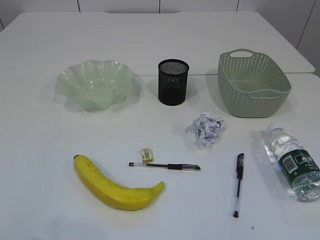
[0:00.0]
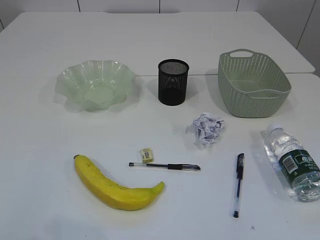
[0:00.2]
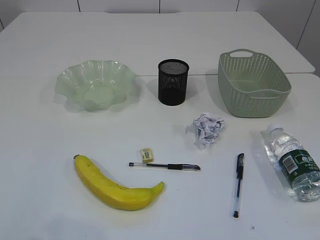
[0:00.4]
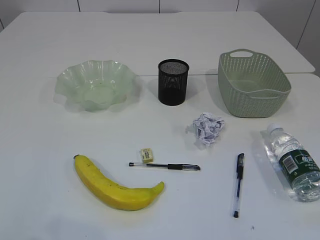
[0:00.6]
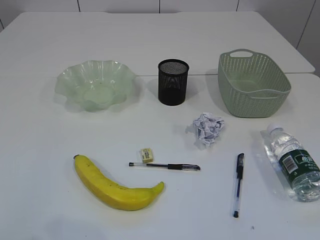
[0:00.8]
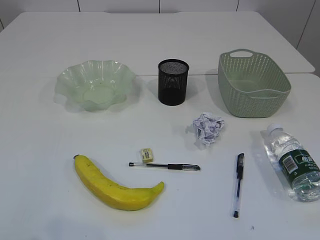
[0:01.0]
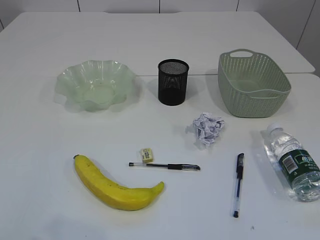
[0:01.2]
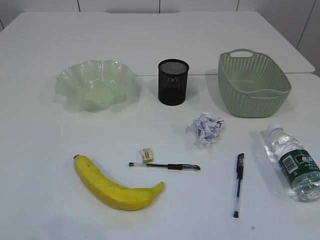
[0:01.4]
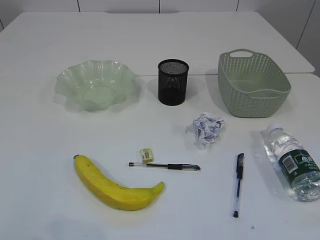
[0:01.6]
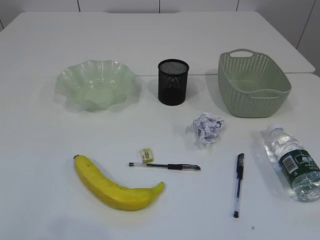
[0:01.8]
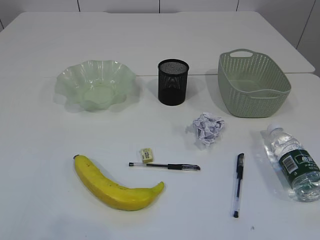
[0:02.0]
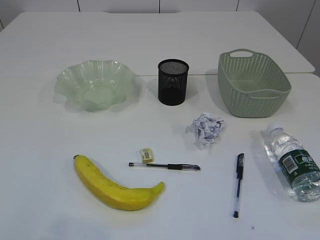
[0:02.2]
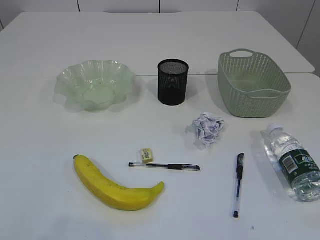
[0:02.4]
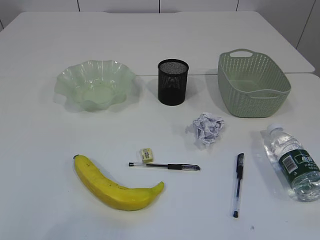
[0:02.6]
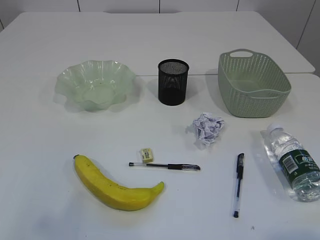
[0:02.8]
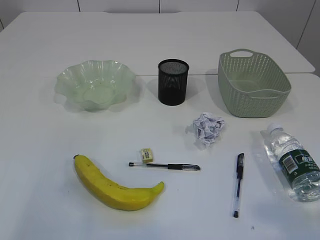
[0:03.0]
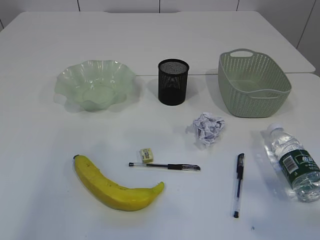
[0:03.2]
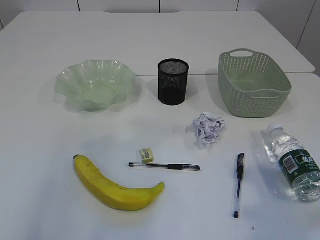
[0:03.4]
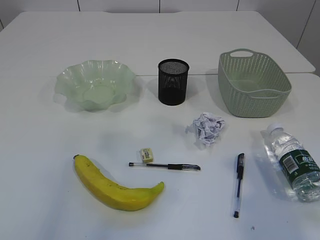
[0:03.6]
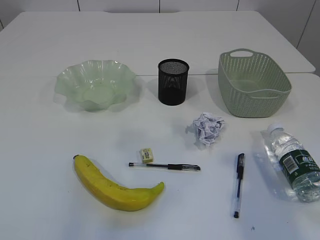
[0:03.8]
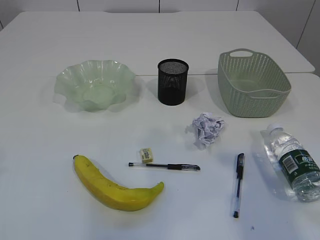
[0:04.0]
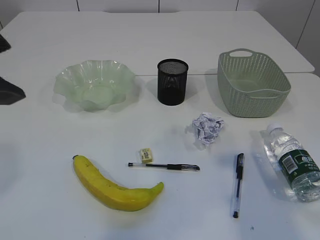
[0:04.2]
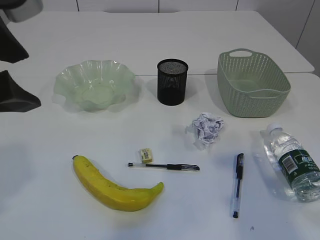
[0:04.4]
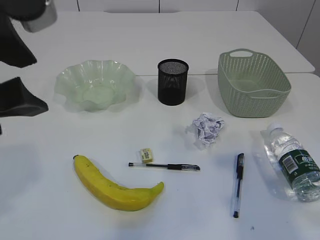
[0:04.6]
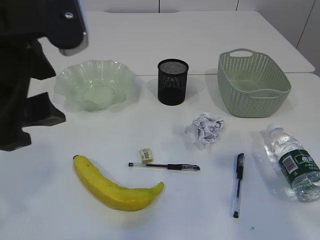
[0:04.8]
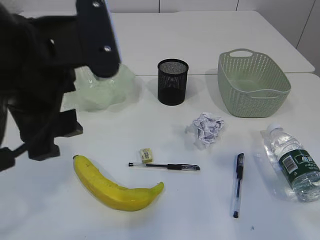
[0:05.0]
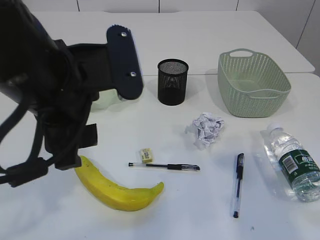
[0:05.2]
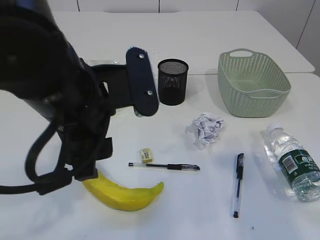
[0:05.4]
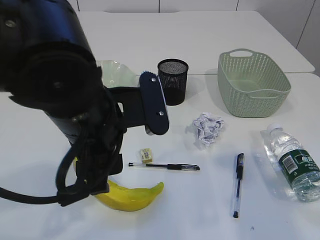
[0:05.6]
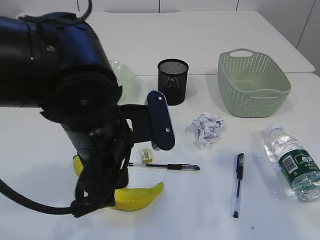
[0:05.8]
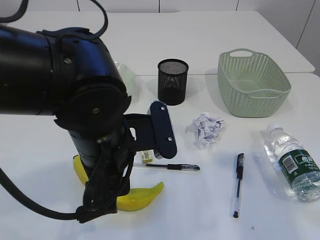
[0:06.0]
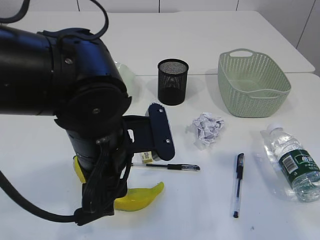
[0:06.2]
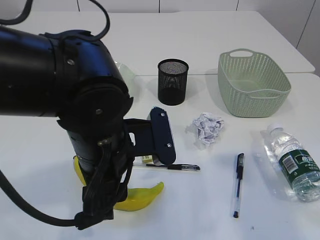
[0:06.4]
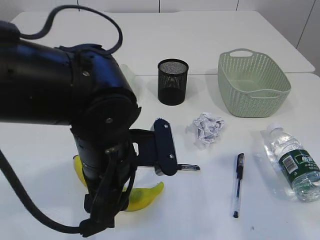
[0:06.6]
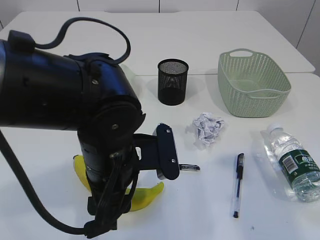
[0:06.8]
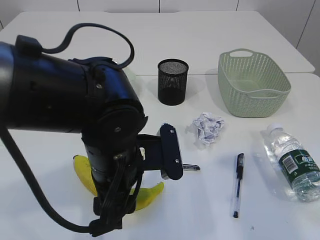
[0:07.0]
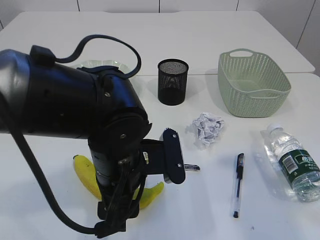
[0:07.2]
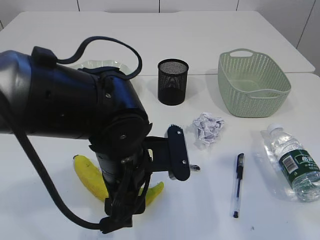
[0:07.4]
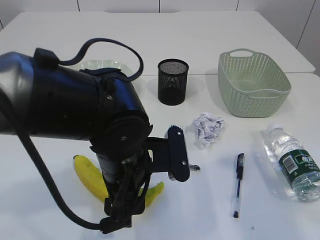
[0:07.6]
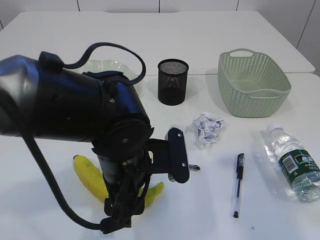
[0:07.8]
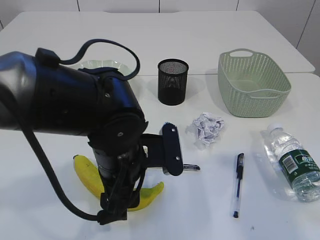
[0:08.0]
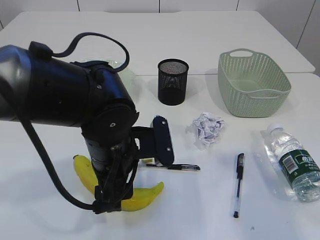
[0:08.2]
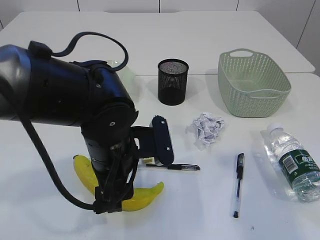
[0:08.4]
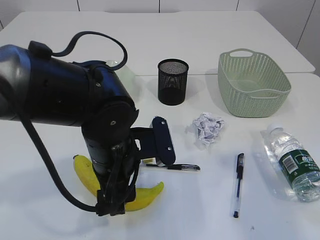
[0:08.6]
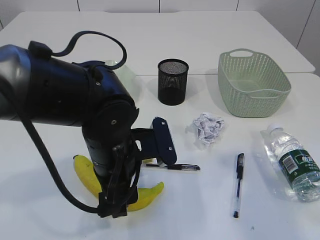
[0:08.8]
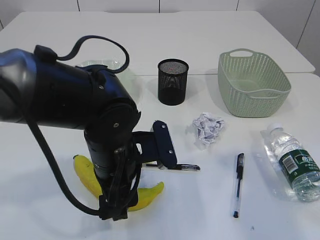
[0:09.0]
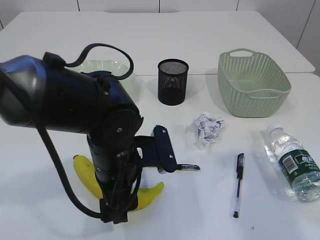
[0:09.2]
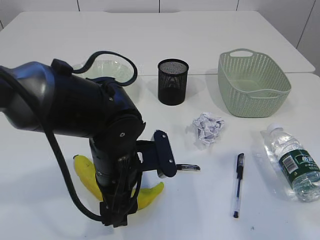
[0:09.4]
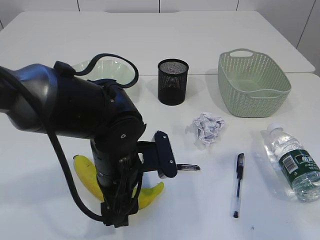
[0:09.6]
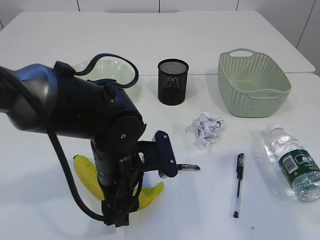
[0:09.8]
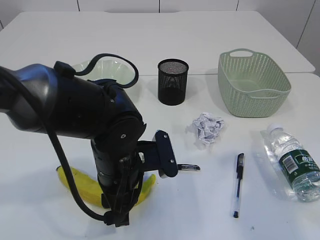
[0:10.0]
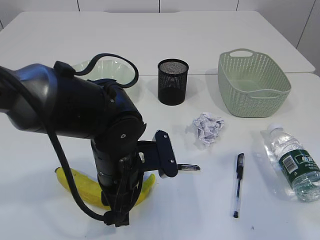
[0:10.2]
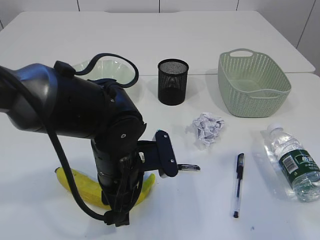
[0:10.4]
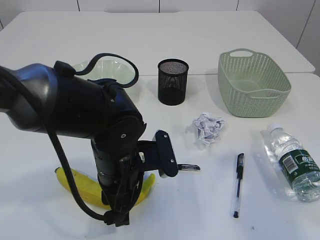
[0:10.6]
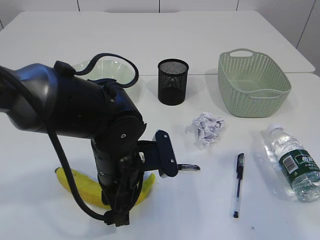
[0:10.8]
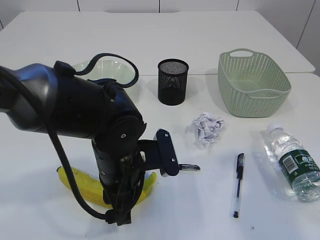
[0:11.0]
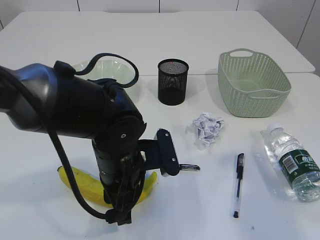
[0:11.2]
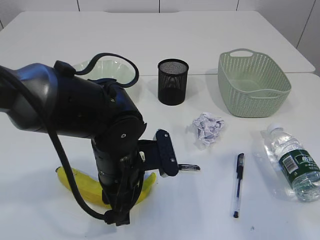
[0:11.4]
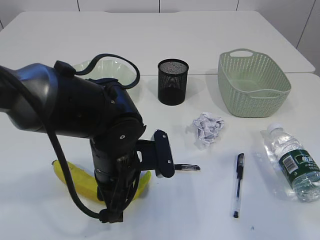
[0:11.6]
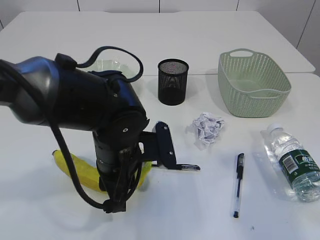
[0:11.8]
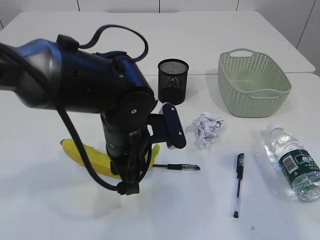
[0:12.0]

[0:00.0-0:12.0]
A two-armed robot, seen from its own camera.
0:01.6 to 0:03.0: The left gripper goes roughly 15 cm upward, and opens its fingers.
0:03.0 to 0:04.4: The left gripper goes about 20 cm to the right and forward. Meanwhile the right gripper travels forward by roughly 10 cm.
0:04.4 to 0:06.0: The left gripper moves downward and to the right, about 20 cm.
0:07.6 to 0:09.0: The grippers stay close to where they were, moving slightly.
0:09.0 to 0:10.4: The left gripper closes.

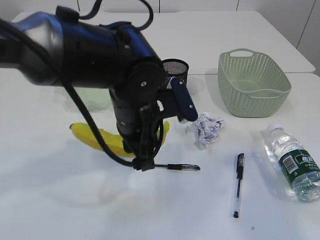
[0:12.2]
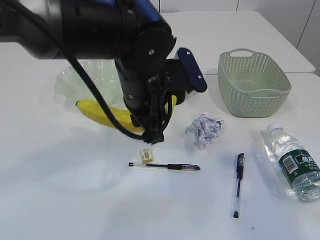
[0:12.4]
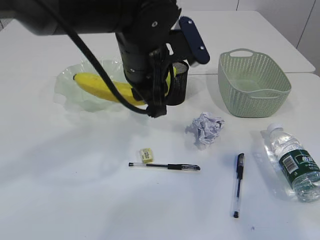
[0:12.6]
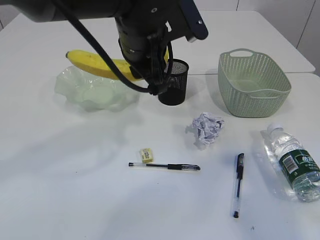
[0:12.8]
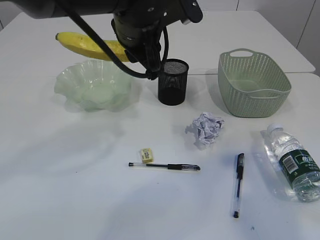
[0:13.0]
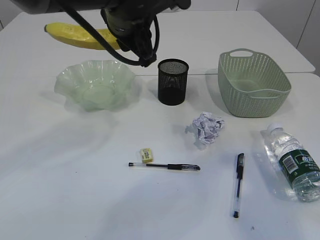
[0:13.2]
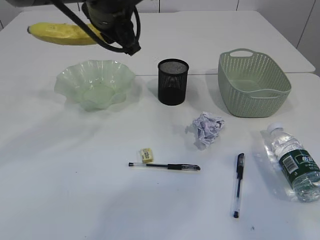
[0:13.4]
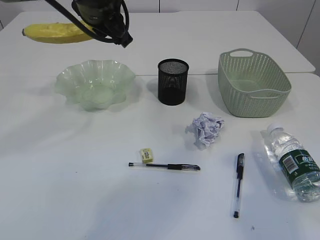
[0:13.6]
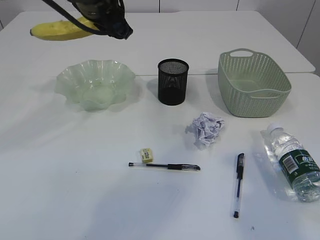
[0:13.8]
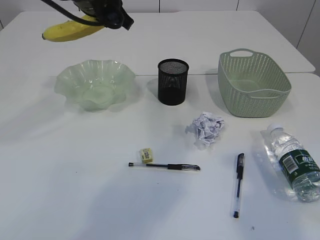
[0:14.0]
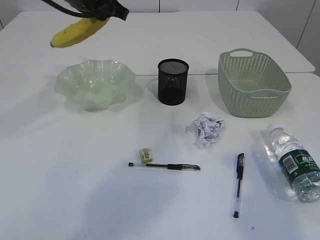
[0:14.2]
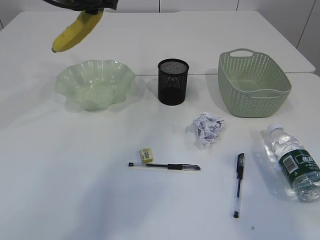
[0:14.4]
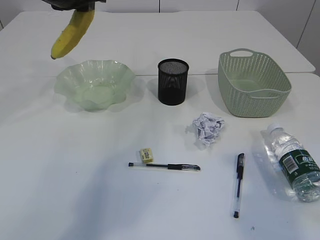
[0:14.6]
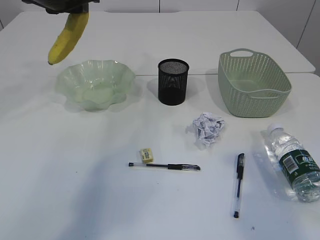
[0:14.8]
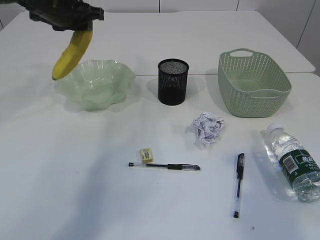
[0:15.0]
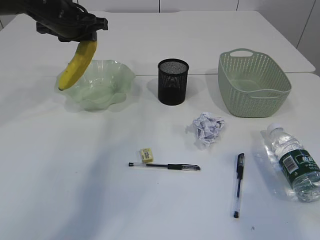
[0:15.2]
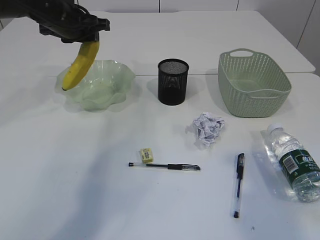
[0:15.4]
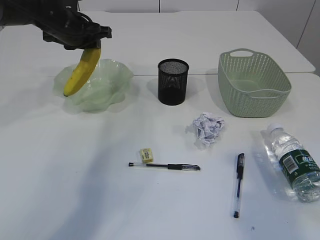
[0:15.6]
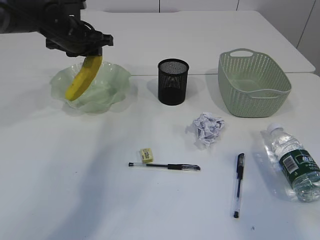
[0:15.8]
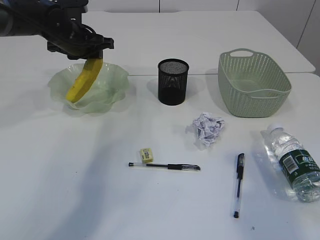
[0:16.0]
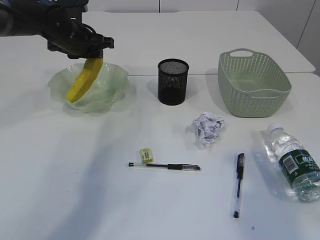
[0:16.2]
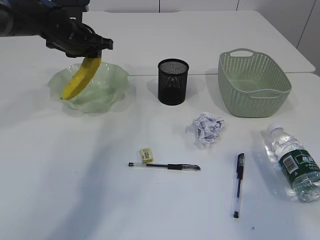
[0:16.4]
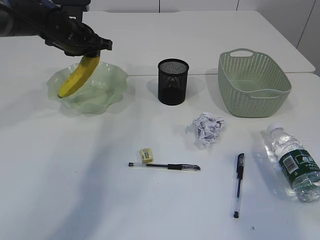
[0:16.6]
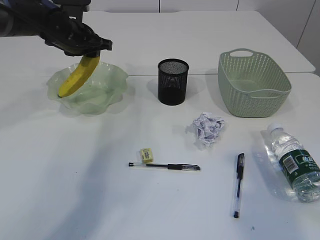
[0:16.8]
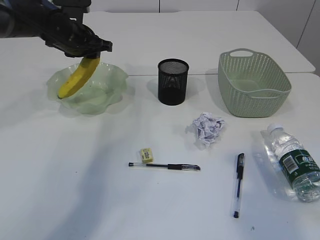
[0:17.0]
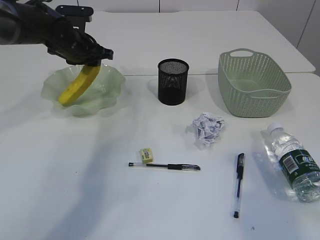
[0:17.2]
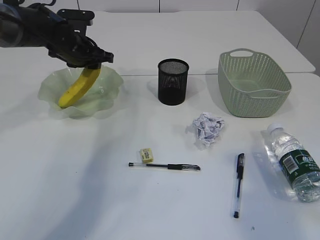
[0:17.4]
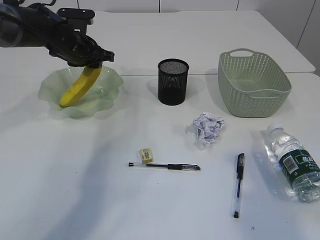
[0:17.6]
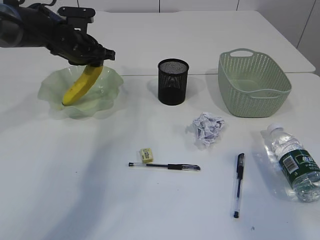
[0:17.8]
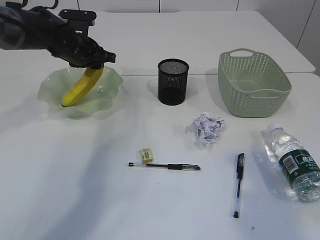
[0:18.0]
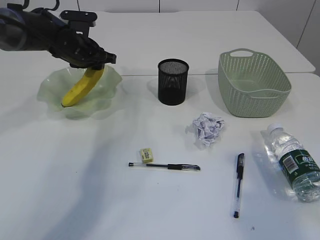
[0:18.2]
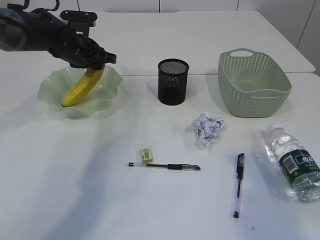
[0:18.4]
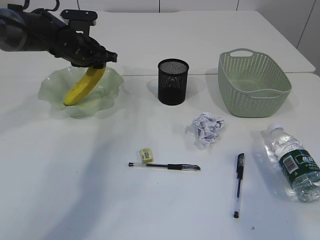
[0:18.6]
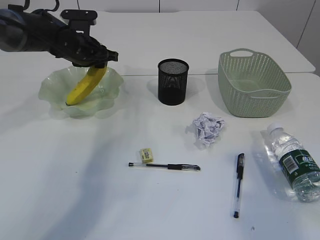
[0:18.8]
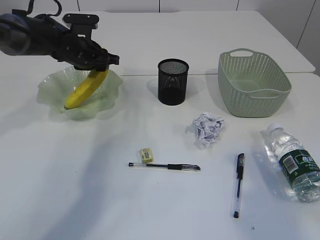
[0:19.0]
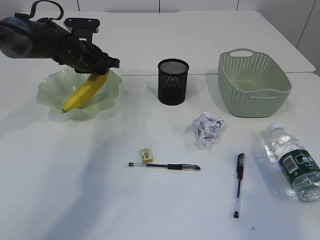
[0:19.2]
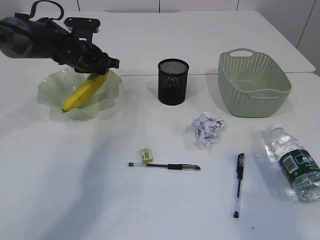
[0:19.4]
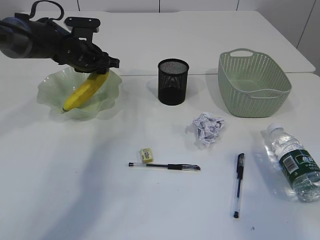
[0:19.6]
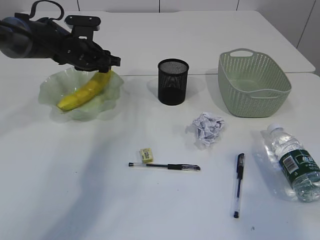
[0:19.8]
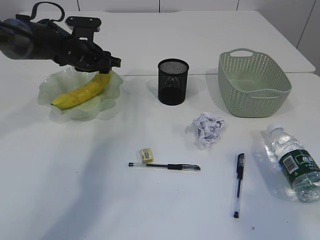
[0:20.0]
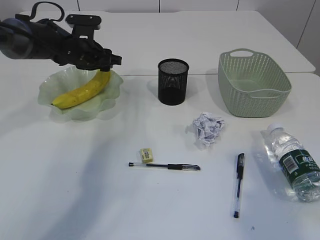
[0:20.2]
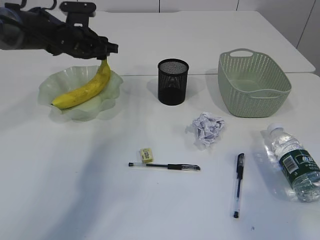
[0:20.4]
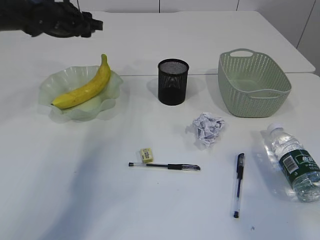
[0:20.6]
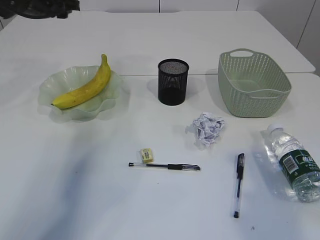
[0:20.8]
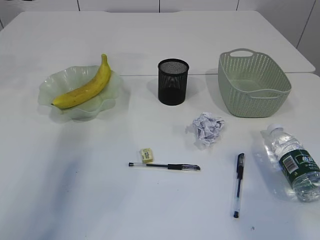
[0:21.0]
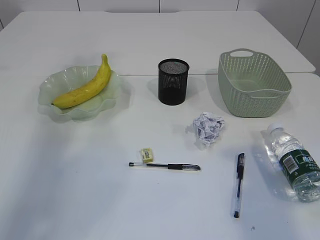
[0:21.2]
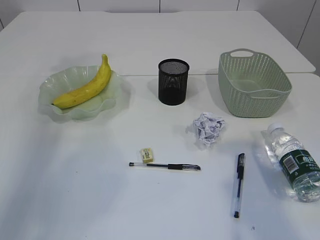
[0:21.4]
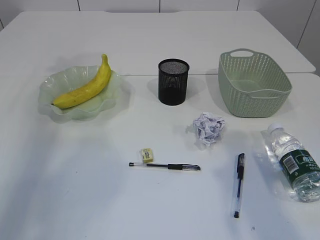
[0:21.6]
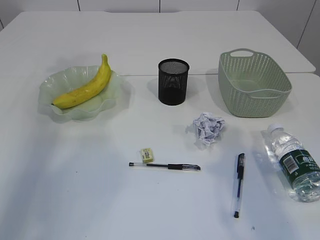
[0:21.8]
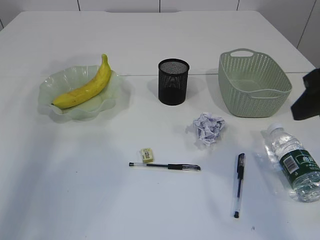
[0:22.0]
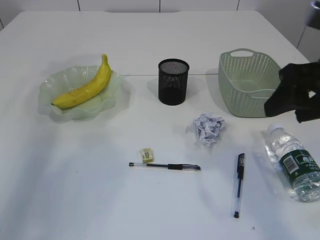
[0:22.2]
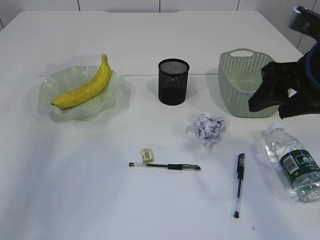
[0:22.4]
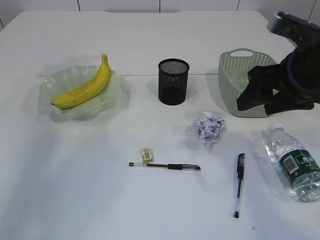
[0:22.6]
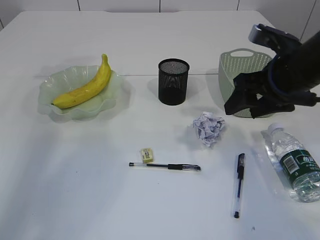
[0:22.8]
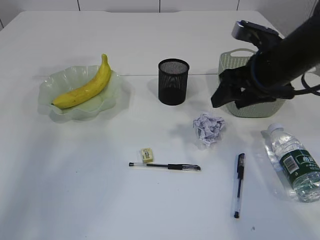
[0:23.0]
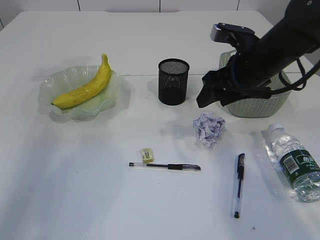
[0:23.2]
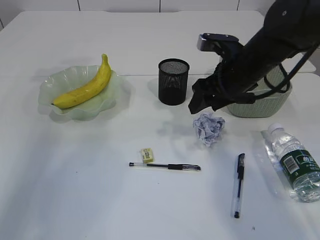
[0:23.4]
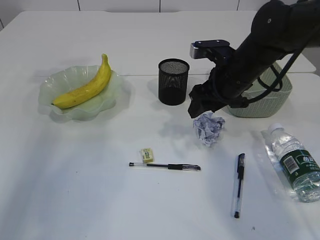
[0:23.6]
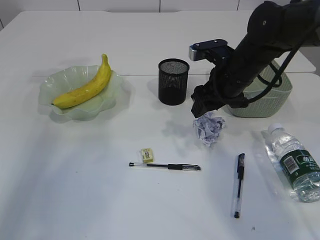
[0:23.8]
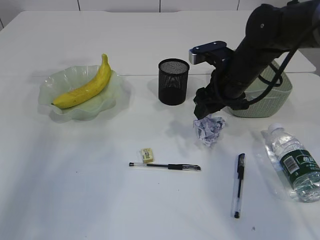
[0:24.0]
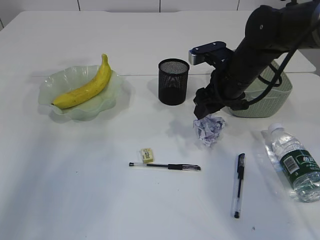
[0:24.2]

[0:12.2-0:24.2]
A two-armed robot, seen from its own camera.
Step, 0:12.2 to 0:20.4: Place the banana in the plate.
0:12.2 to 0:13.8: The left gripper moves upward, forward and to the left, approximately 20 cm.
0:13.8 to 0:15.2: The left gripper travels to the left, forward and downward by approximately 15 cm.
0:15.2 to 0:16.6: The grippers stay close to where they were, moving slightly.
0:16.6 to 0:19.8: The grippers stay close to where they were, moving slightly.
0:19.8 to 0:21.2: The left gripper moves to the left and upward, approximately 25 cm.
0:21.2 to 0:22.6: The right gripper travels forward and downward by approximately 20 cm.
0:22.6 to 0:24.2: The right gripper travels forward, downward and to the left by some 15 cm.
